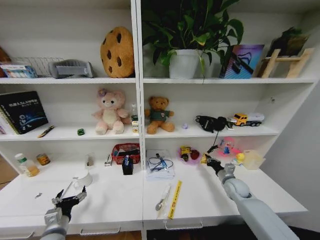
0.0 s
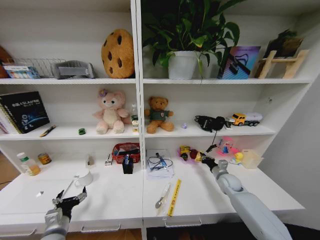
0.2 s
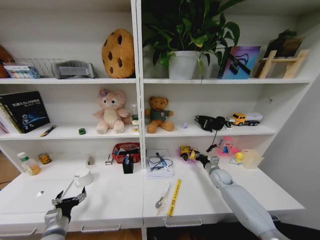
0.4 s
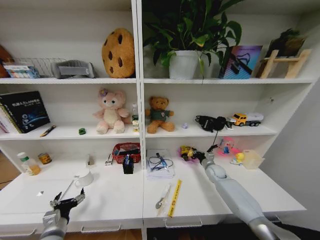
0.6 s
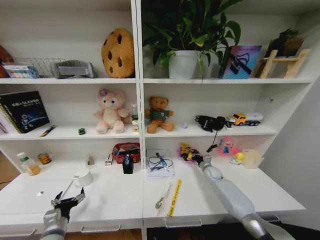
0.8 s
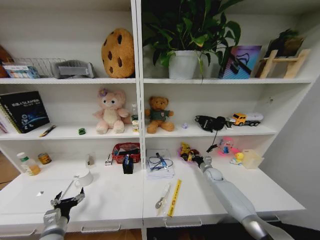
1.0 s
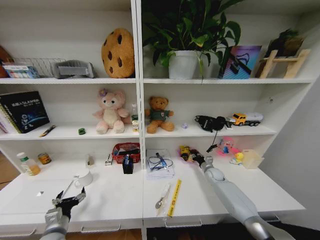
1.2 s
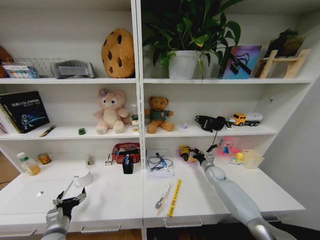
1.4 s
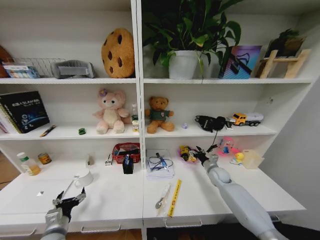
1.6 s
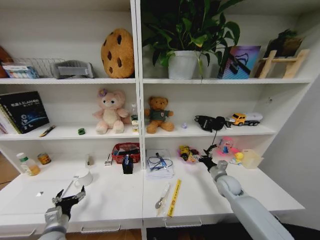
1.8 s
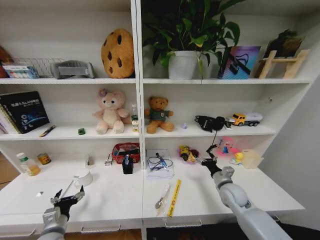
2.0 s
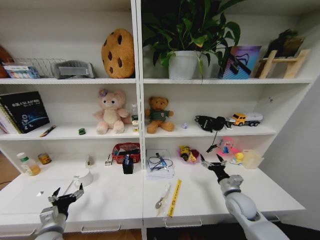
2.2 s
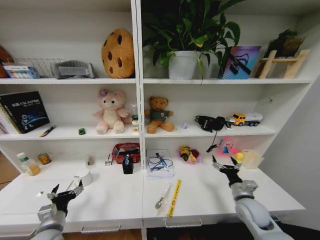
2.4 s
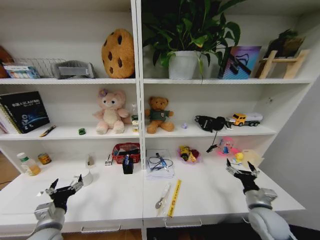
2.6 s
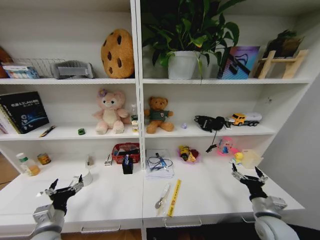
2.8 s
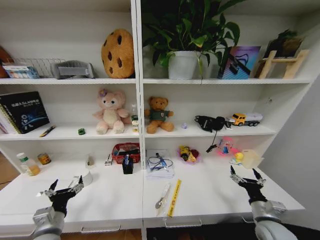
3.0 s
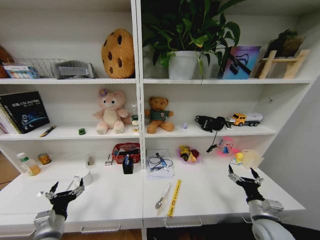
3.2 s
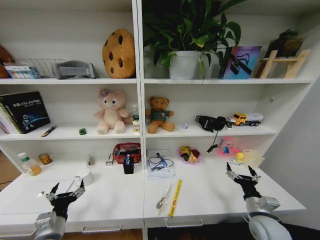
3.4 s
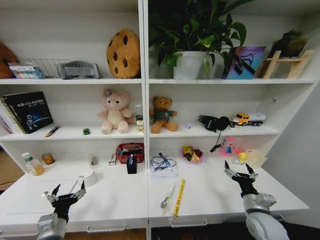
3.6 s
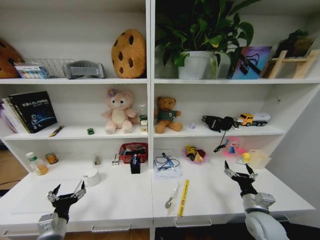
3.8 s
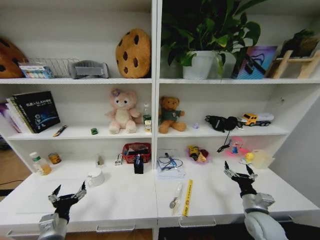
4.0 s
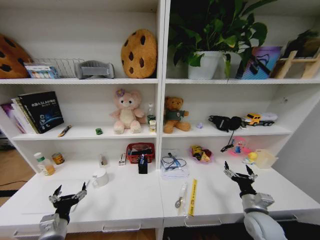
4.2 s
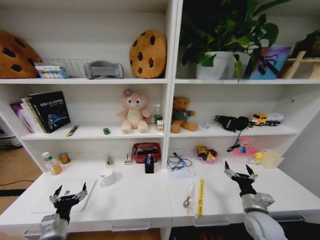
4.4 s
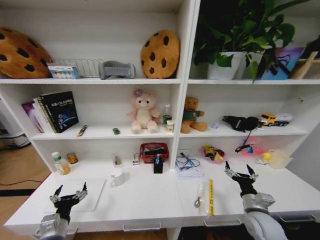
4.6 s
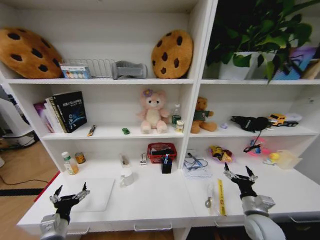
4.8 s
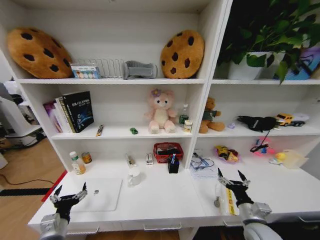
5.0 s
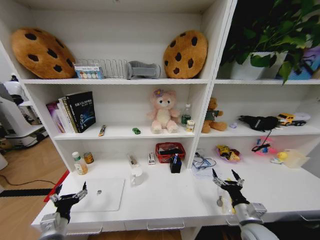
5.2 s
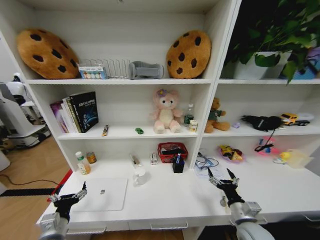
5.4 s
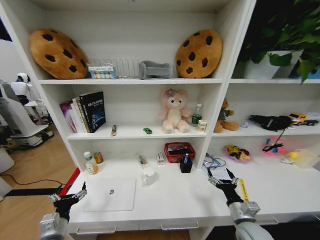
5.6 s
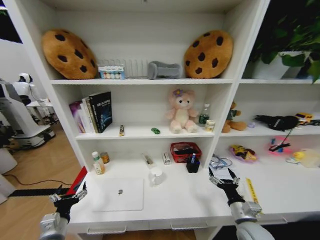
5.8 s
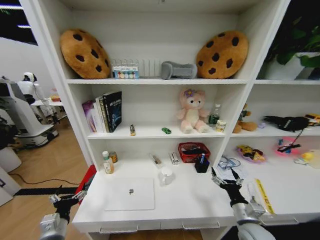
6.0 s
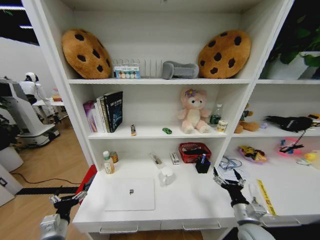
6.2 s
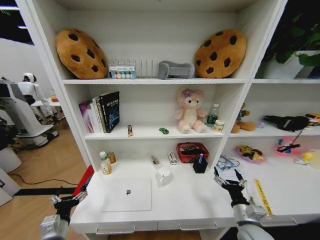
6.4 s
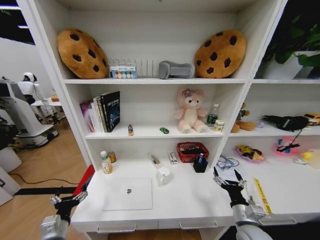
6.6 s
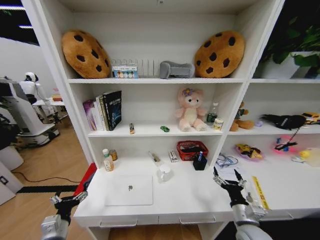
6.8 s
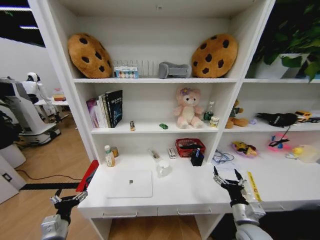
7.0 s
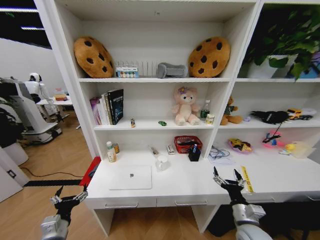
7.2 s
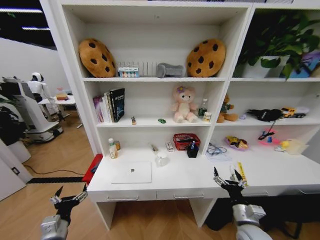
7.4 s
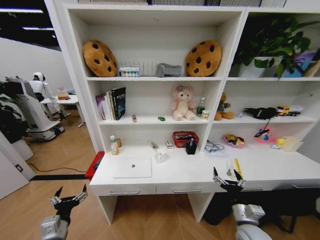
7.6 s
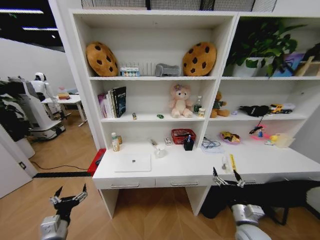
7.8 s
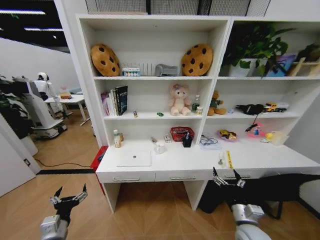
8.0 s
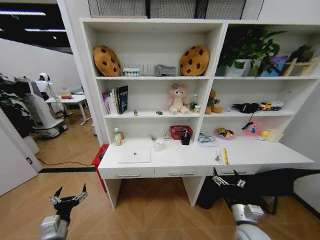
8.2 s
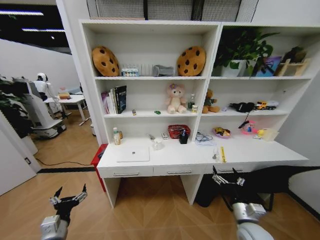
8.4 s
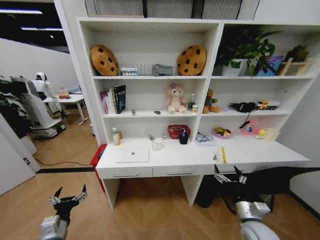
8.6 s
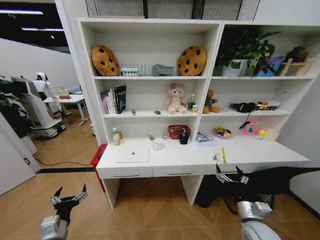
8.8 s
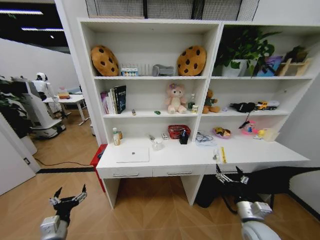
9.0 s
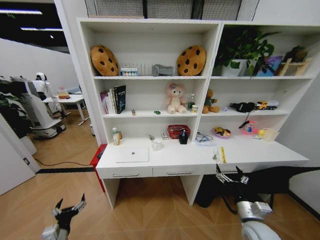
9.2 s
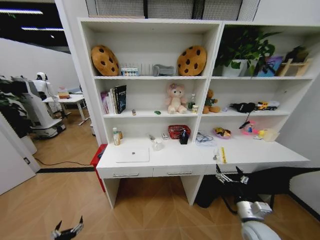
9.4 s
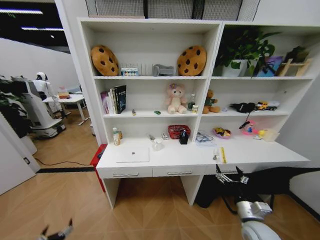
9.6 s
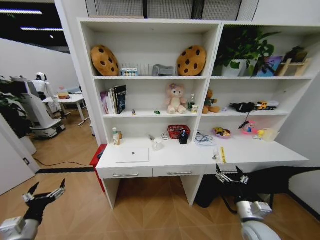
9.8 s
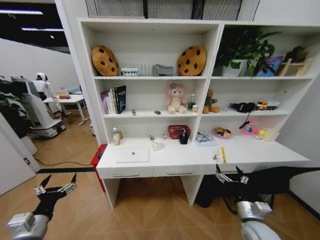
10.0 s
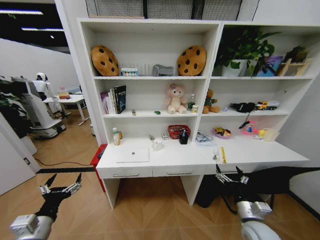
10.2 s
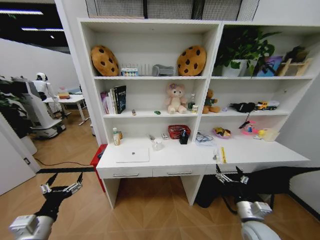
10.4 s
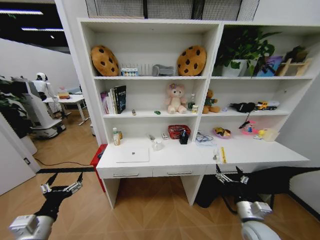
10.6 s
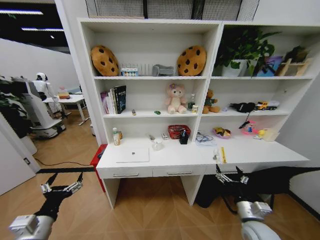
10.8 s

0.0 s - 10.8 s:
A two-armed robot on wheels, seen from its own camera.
Task of the whole recording: Organize the objects on the table.
0.0 s - 1.6 s: The right gripper goes roughly 5 cm forward, and opens up.
1.6 s - 3.0 s: The left gripper shifts about 5 cm upward. The right gripper is displaced backward by some 25 cm.
4.6 s - 6.2 s: The right gripper shifts by approximately 5 cm.
7.8 s - 9.2 s: The left gripper shifts about 5 cm downward.
9.2 s - 10.8 s: The left gripper moves upward, roughly 15 cm.

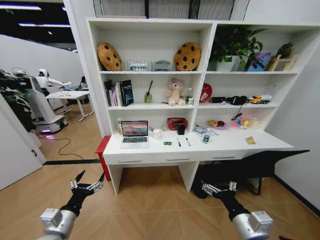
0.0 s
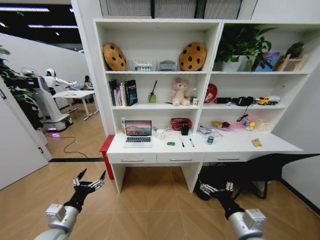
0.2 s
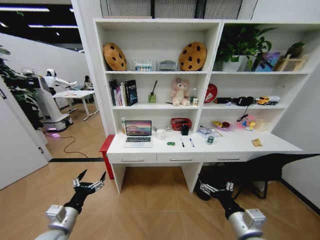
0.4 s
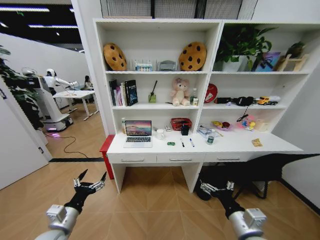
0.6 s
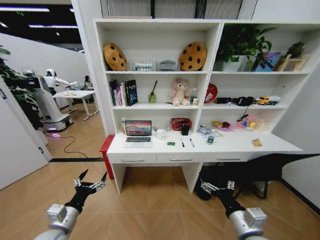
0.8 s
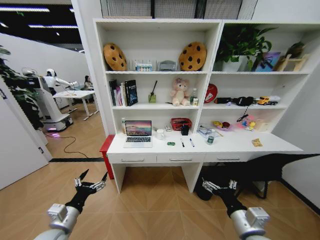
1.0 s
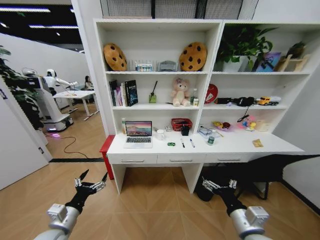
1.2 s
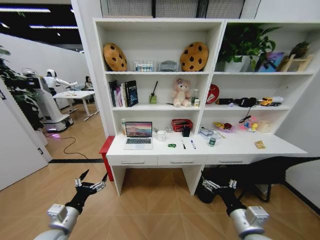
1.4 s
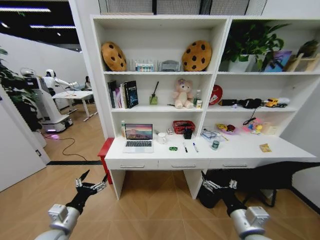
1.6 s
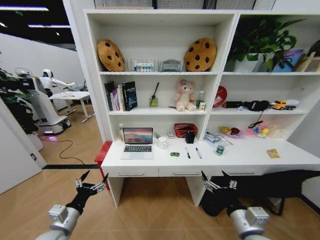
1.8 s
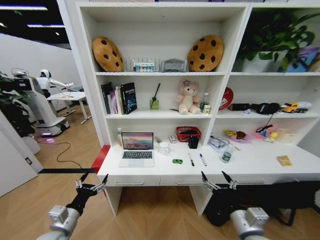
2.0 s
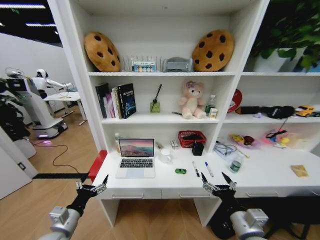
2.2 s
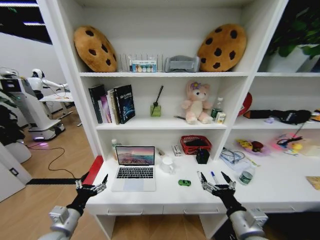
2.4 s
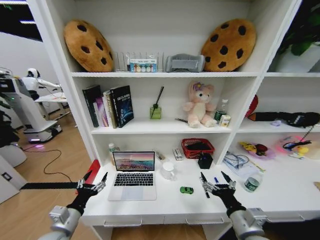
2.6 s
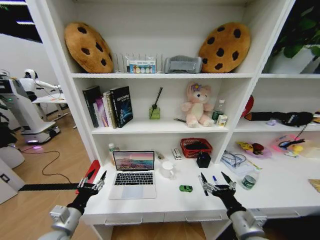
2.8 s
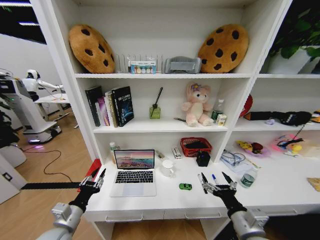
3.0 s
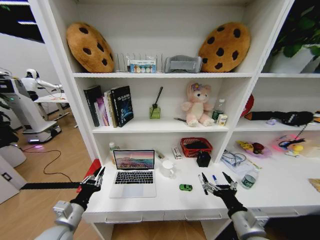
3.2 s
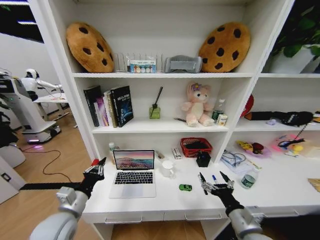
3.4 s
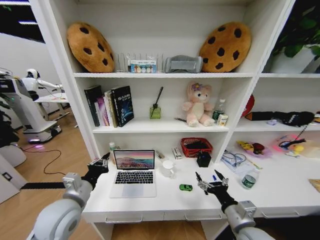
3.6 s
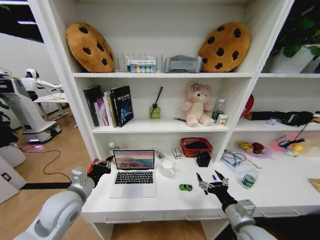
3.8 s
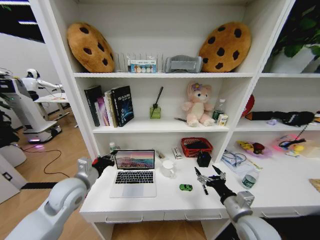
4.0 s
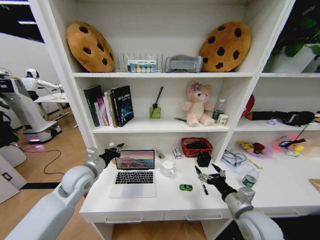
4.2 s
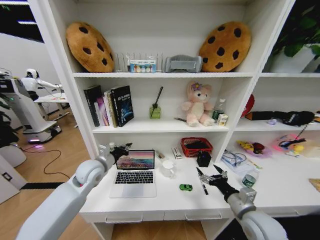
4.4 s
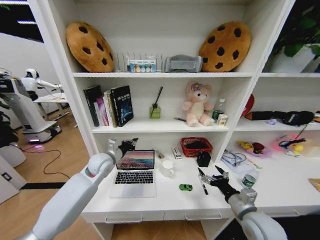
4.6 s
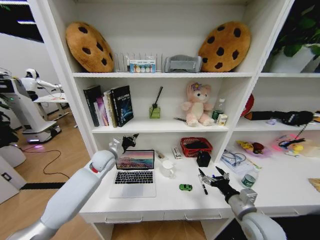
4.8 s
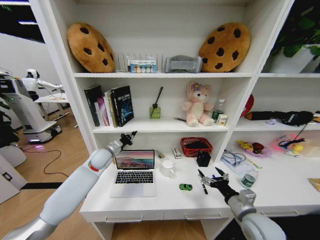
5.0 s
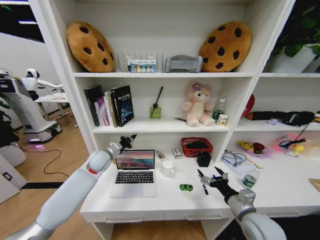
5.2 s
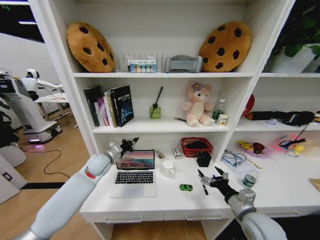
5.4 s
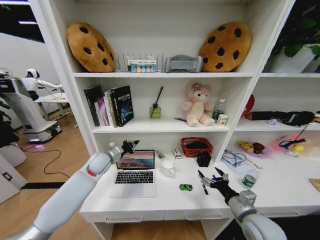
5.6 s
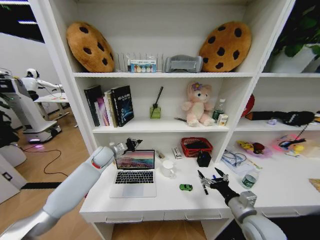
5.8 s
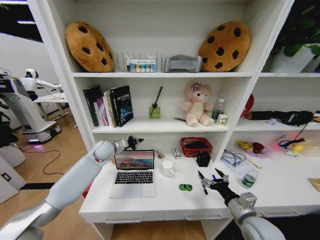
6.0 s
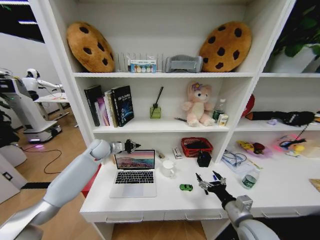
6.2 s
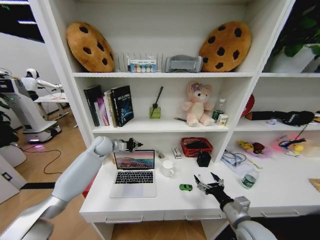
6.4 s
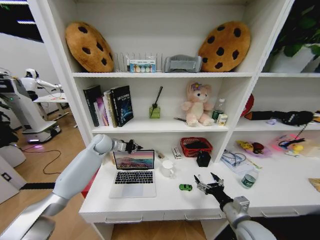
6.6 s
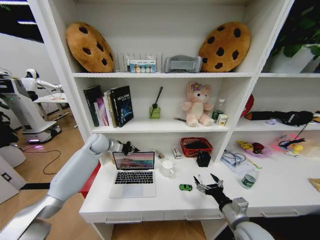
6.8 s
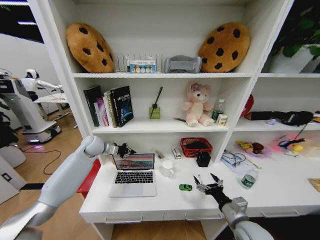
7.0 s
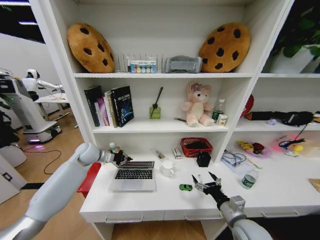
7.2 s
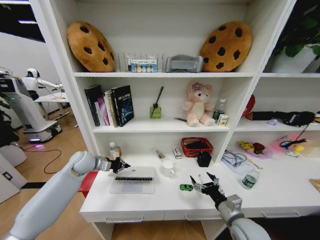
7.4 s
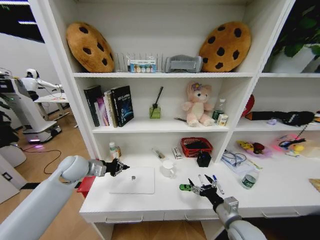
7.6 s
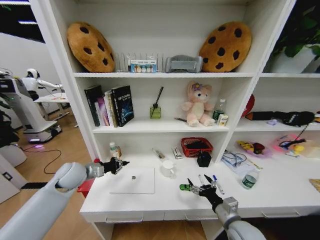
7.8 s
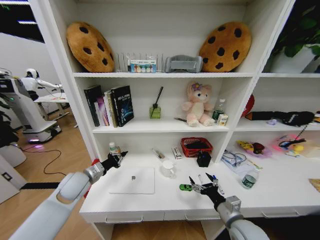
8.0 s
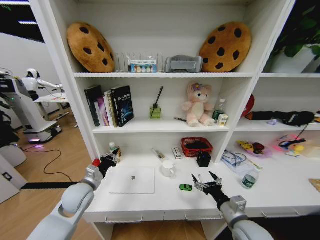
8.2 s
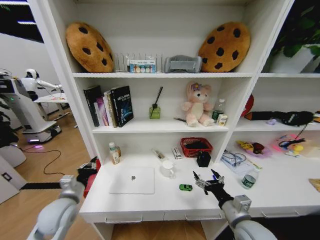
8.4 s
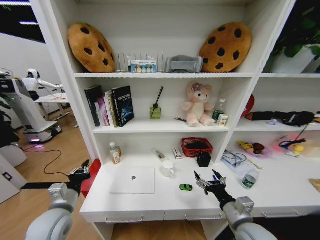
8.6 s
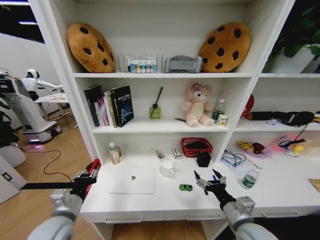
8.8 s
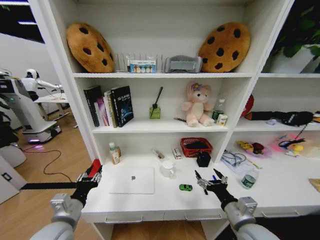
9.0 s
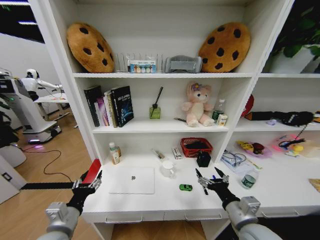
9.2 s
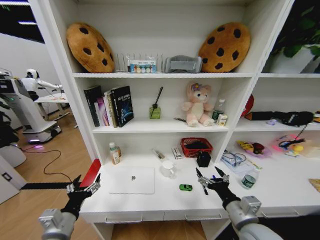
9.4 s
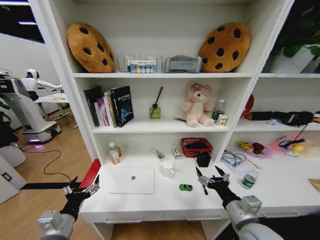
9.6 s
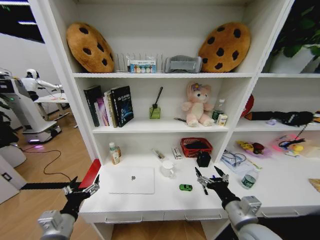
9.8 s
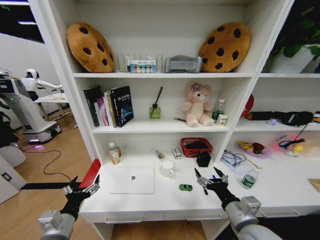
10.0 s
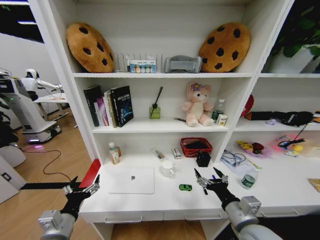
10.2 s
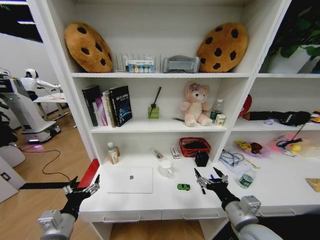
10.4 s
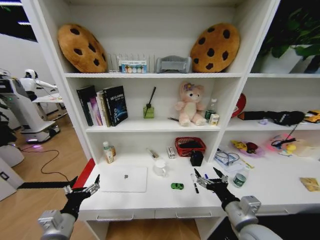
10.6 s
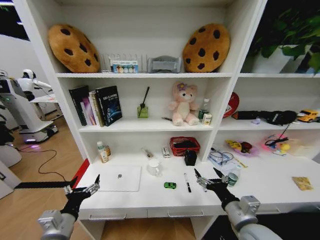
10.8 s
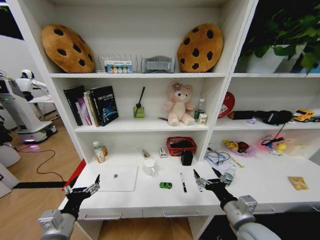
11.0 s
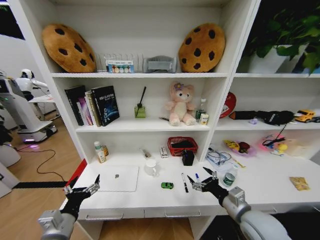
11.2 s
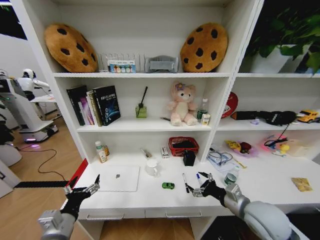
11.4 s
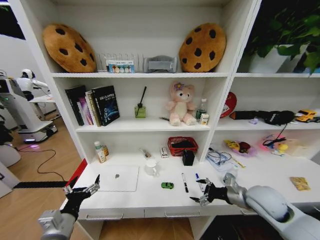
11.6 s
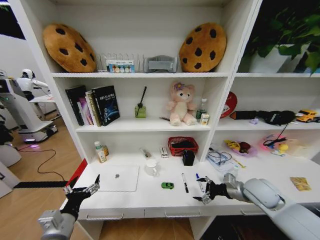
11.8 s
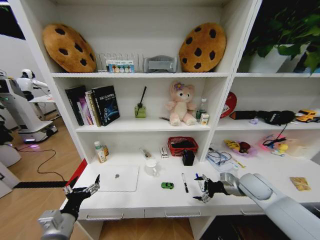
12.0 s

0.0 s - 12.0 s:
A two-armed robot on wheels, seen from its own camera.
Task of the whole recording: Organize the objects on the table.
1.6 s - 3.0 s: The left gripper closes up.
3.0 s - 4.4 s: The left gripper moves forward and upward, some 20 cm, and closes up; the right gripper shifts approximately 5 cm forward.
4.4 s - 6.0 s: The left gripper moves forward, some 10 cm.
6.0 s - 7.6 s: The left gripper heads backward and to the left, covering about 15 cm.
7.6 s - 9.0 s: The left gripper moves backward, about 20 cm, and opens. The right gripper moves upward, approximately 5 cm.
9.0 s - 10.4 s: The left gripper opens up.
10.4 s - 12.0 s: The right gripper shifts about 20 cm forward and to the right.
